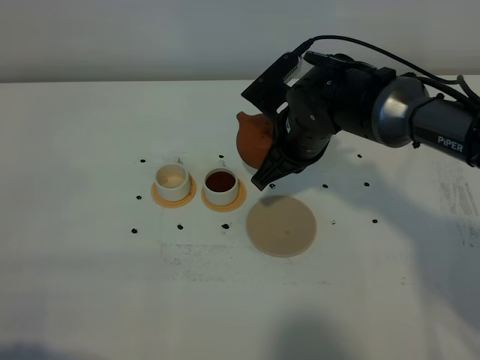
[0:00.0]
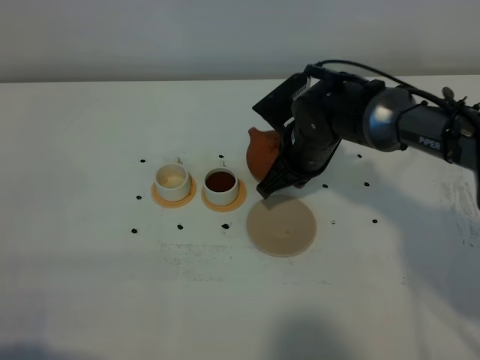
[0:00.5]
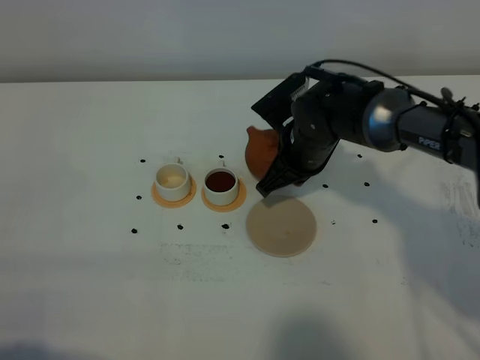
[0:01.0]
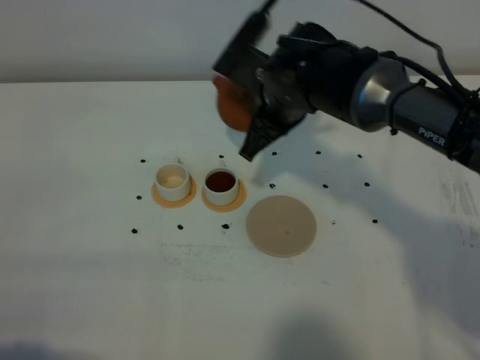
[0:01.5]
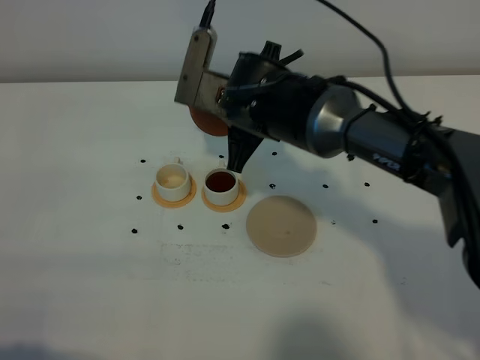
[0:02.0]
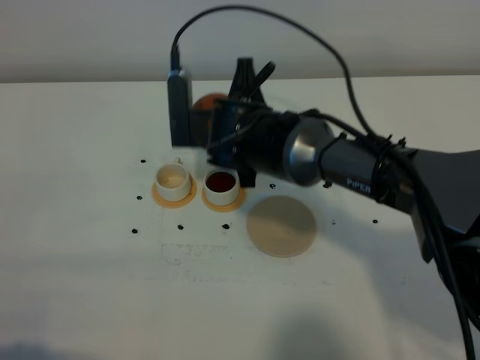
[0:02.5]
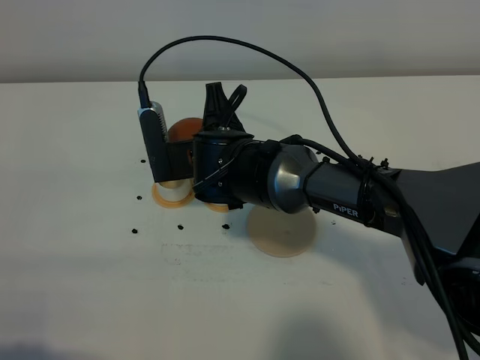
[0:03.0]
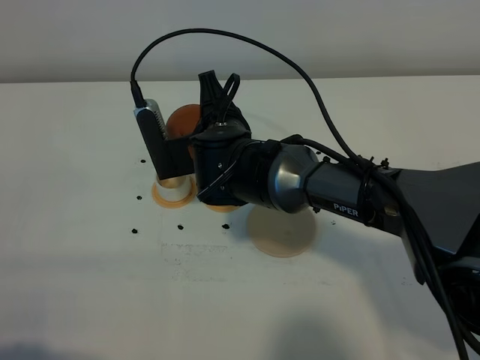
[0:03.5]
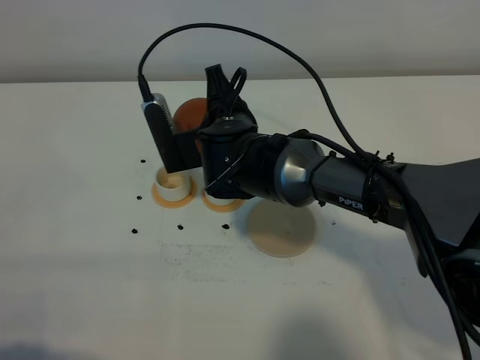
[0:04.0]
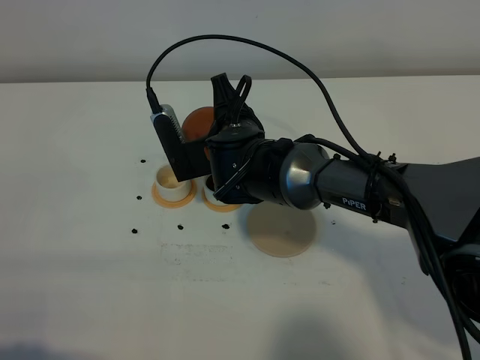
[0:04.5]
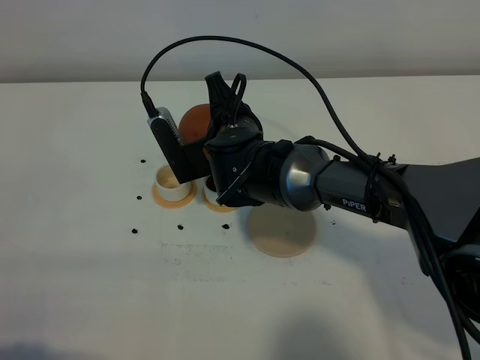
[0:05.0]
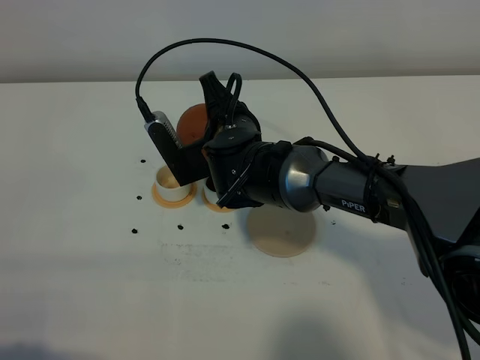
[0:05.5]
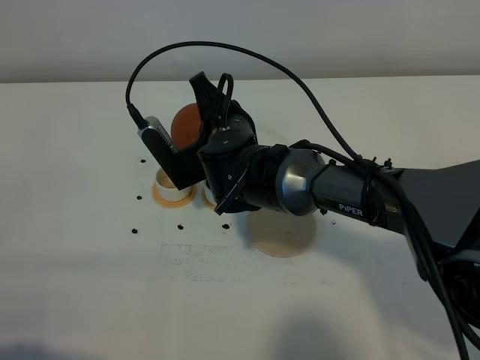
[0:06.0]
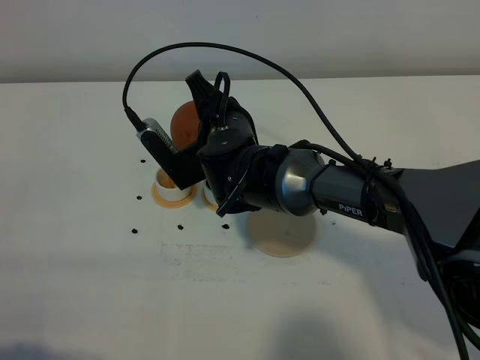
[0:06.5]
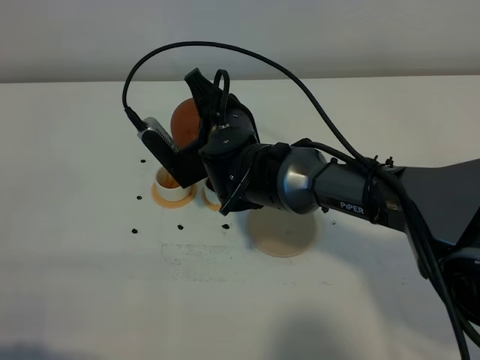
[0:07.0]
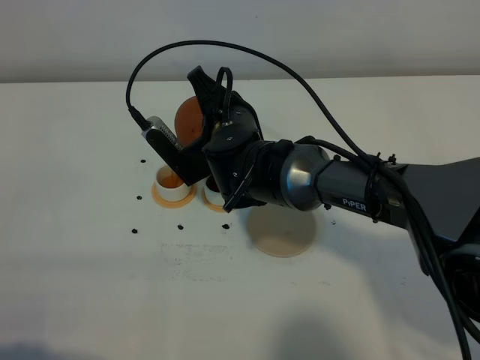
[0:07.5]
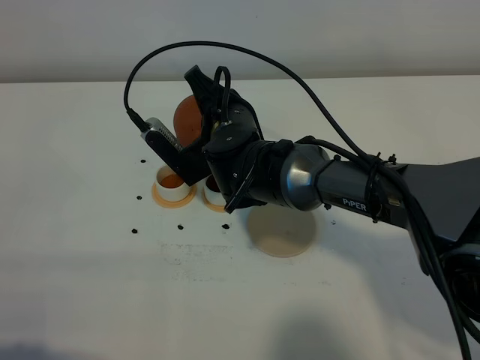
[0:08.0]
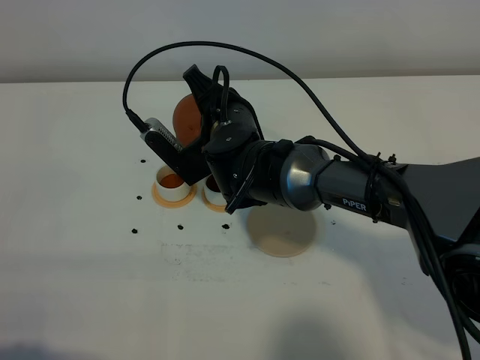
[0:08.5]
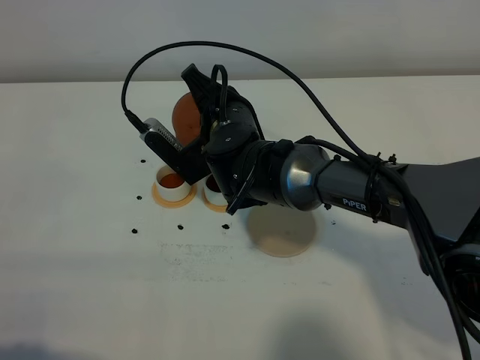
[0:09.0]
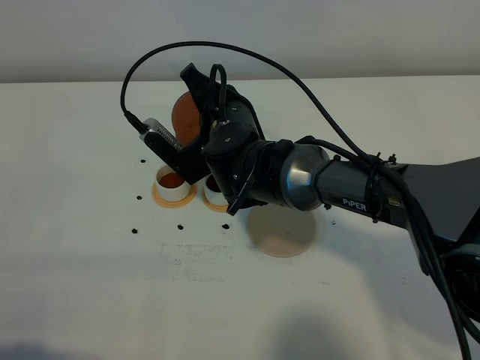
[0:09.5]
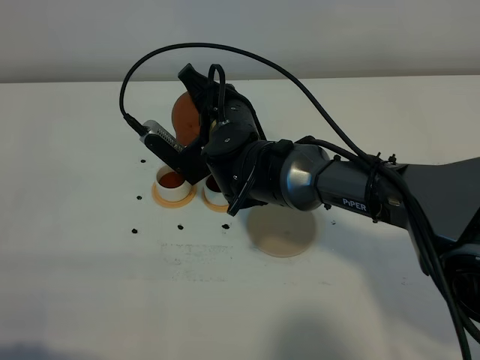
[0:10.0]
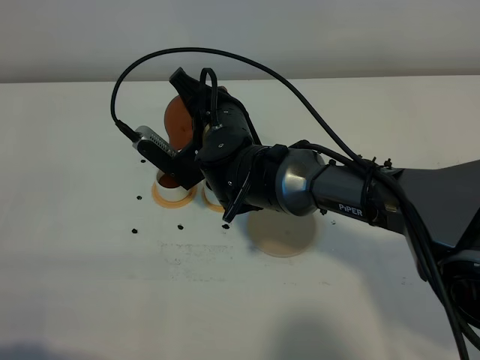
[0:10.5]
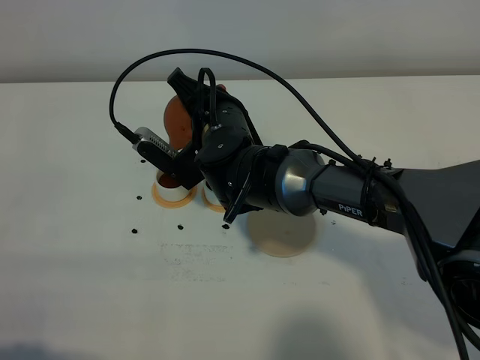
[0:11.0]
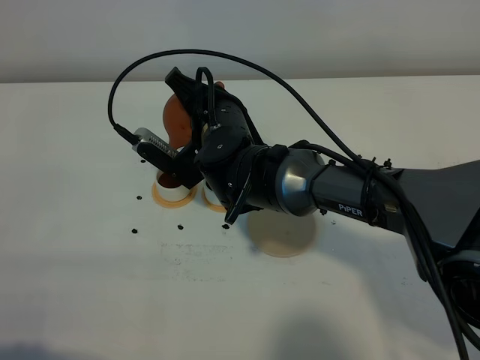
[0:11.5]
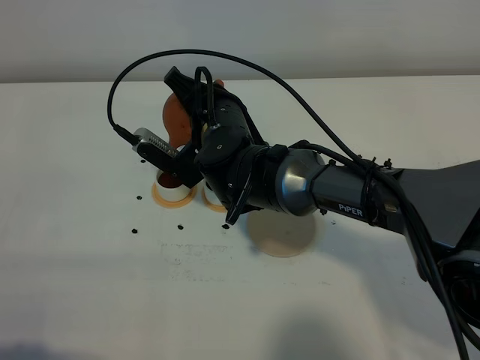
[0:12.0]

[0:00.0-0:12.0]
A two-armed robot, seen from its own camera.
Task of the whole recording: grasp the brown teapot and pour the tea into the two white teacups one by one, put the brown teapot back in its original place.
0:00.0 to 0:02.0: The right gripper travels to the left by some 5 cm, and moves some 5 cm upward and comes back.
0:04.0 to 0:06.0: There are only small adjustments of the grippers.
0:06.0 to 0:10.0: There are only small adjustments of the grippers.
0:10.0 to 0:12.0: The grippers stay close to where they were, moving slightly.

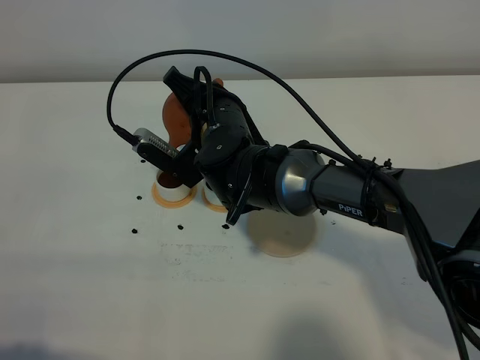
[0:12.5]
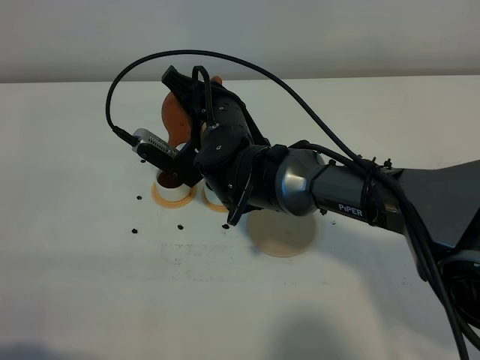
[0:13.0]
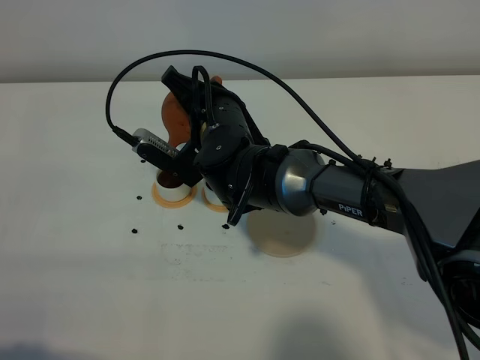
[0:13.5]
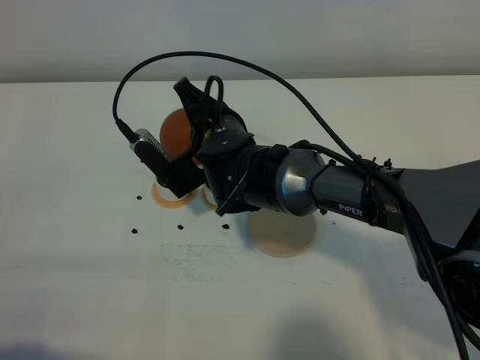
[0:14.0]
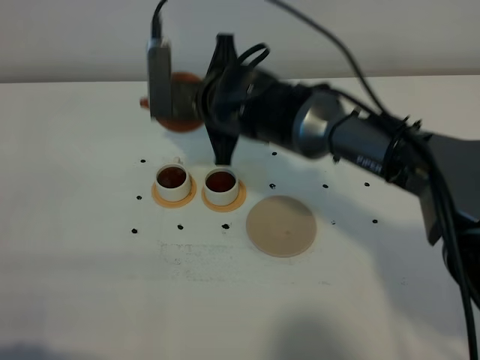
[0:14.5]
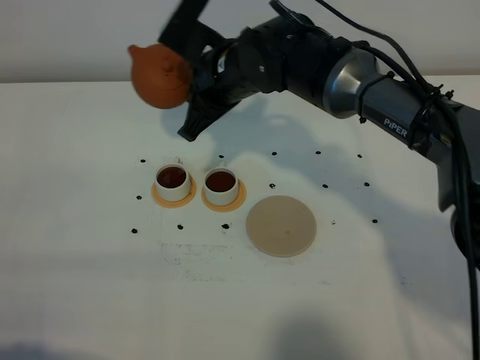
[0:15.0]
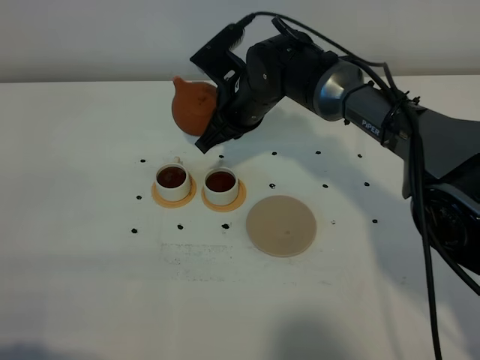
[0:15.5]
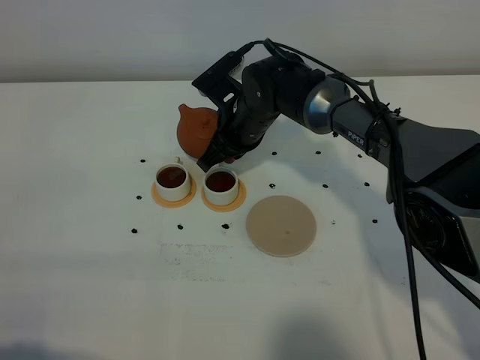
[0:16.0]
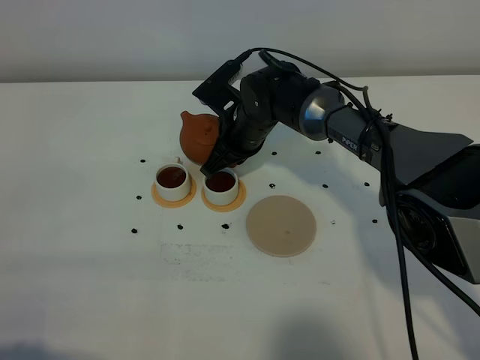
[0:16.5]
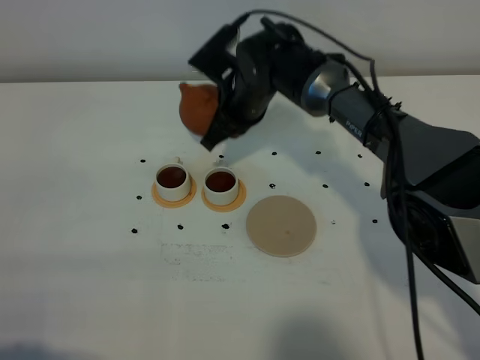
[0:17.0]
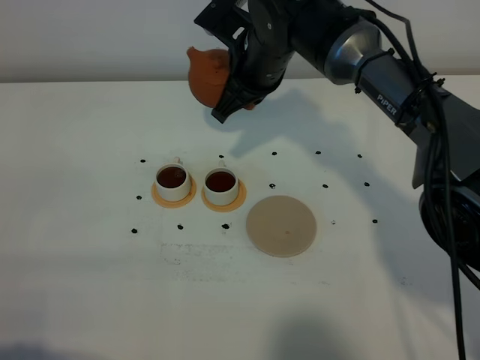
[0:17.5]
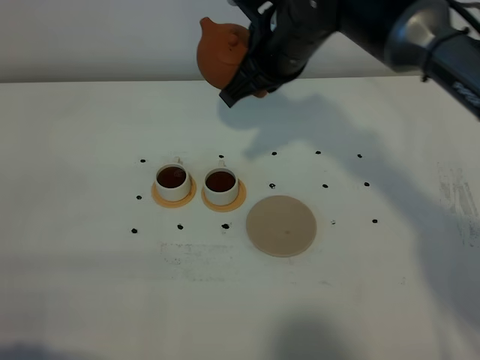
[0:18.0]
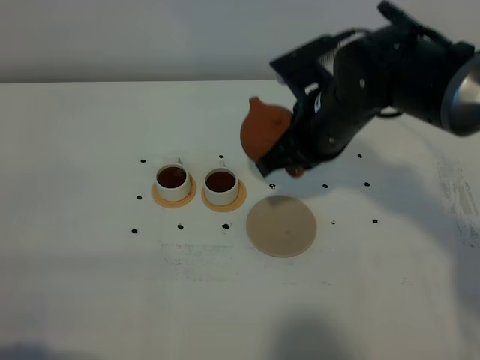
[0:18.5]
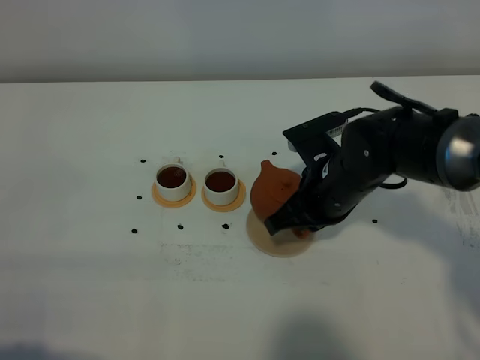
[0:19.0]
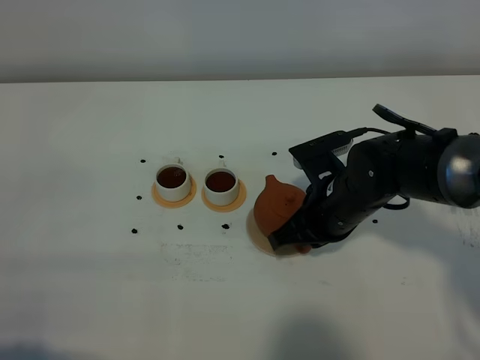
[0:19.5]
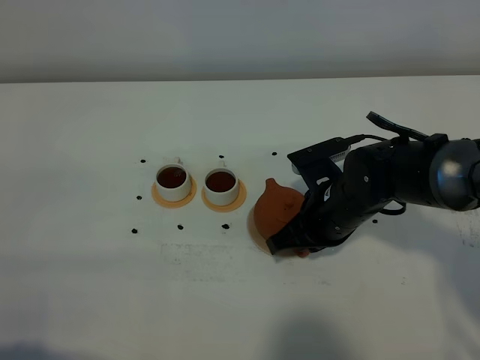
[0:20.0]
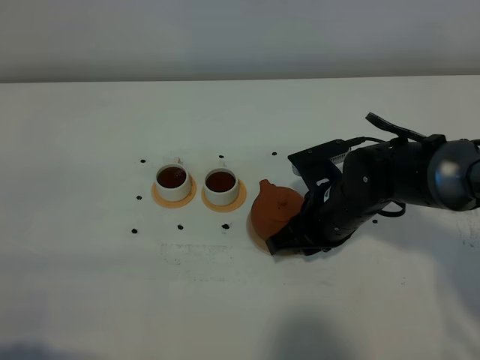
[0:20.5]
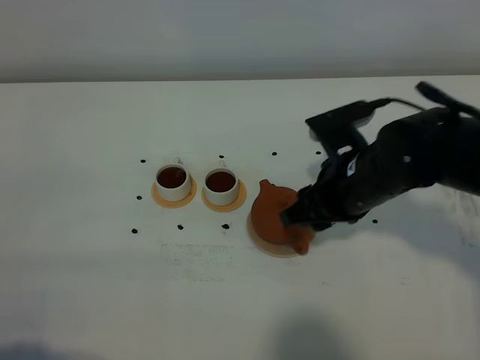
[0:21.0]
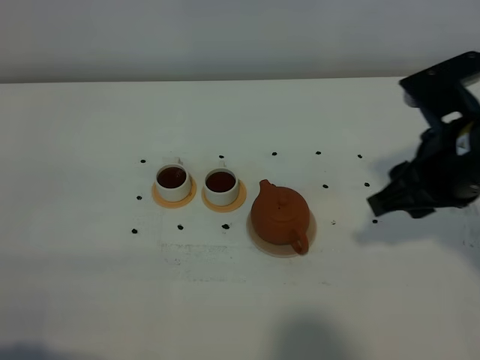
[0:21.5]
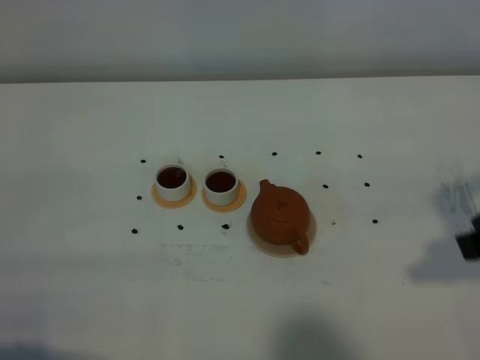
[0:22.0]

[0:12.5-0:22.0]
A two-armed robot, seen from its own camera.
Task of the whole recording: grasp the brown teapot and pour the tea into the two white teacups one by one, put the brown teapot back in its original place.
0:14.5 to 0:16.5: The right gripper heads downward and forward, covering some 10 cm.
0:16.5 to 0:18.0: The right gripper heads upward, covering some 15 cm.
0:18.0 to 0:20.0: The right gripper shifts some 20 cm downward, backward and to the right.
0:20.0 to 0:22.0: The right gripper heads upward, to the right and backward, covering about 25 cm, and opens its fingers.

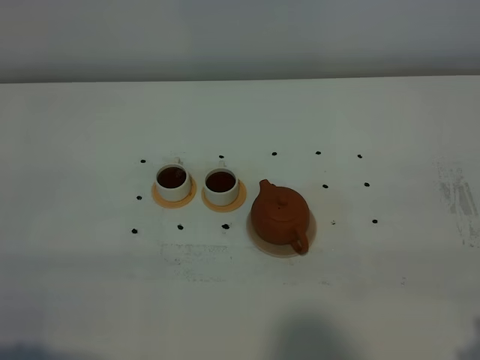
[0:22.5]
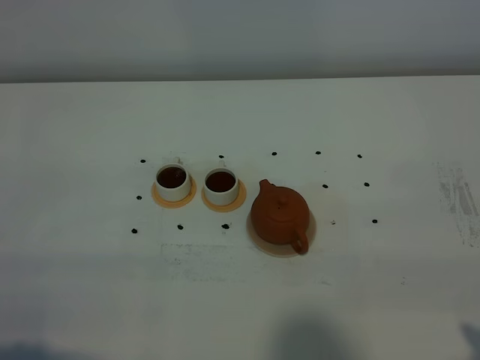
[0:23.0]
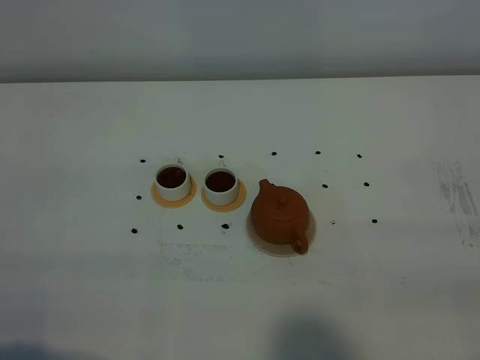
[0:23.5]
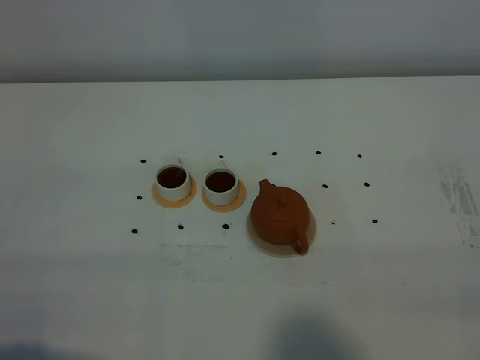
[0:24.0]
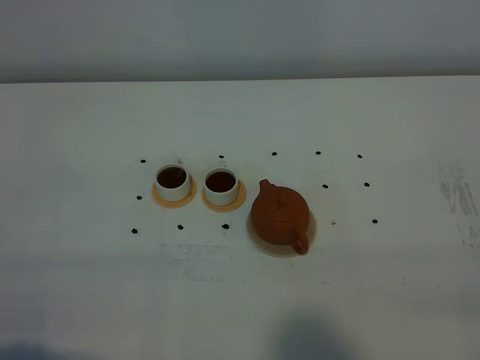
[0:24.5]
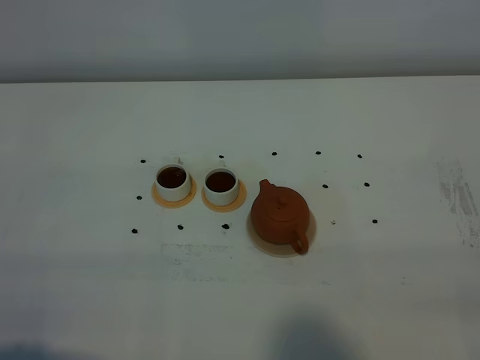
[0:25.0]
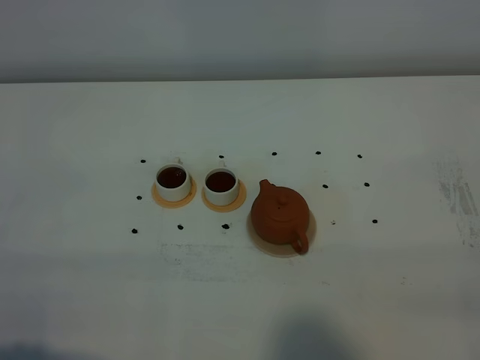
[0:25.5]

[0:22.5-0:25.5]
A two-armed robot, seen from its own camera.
Task of the whole recording: grasp the brown teapot and pour the tea into the two white teacups one by one, put the brown teapot back in its original place.
0:24.0 to 0:25.5: Neither gripper changes place.

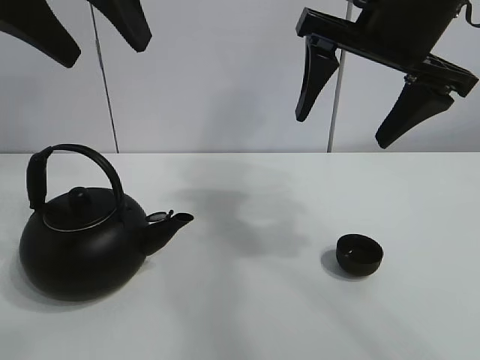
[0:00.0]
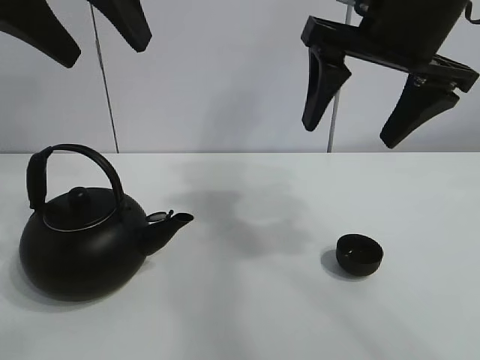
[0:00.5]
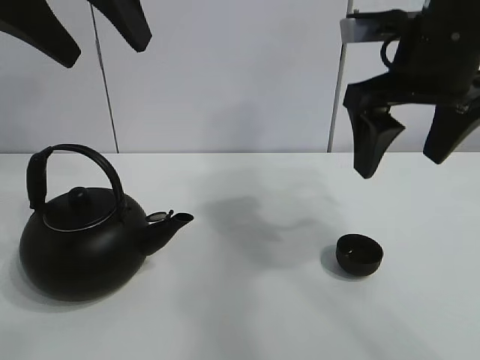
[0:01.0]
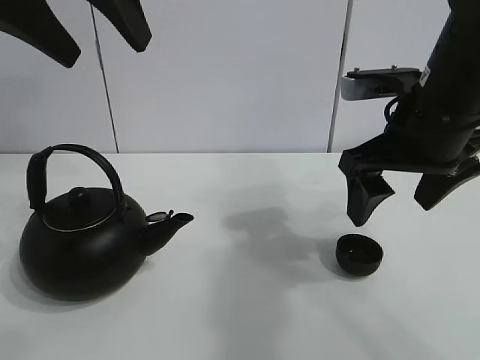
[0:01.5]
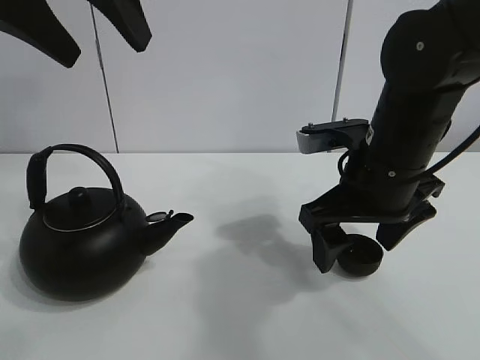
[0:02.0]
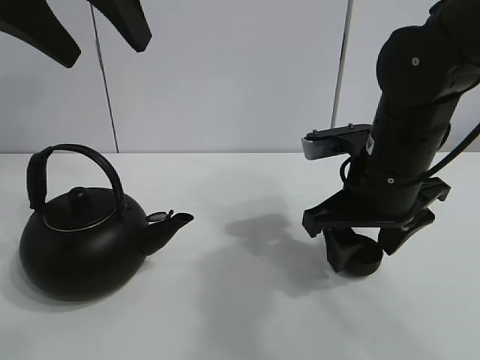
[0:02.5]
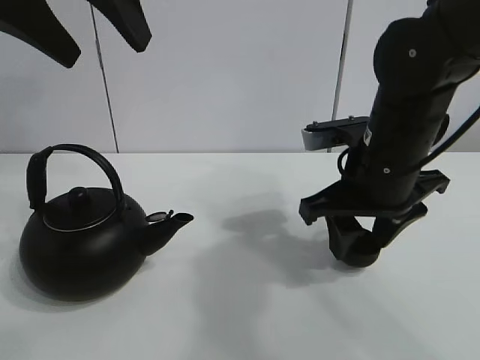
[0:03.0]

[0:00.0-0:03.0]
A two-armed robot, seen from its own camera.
Task of the whole recording: pour tea into the teacup.
Step, 0:00.0 to 0:02.5: Pick up the teacup with the right gripper.
0:01.5 to 0:03.0: The right gripper shifts approximately 5 cm downward, and closes up.
